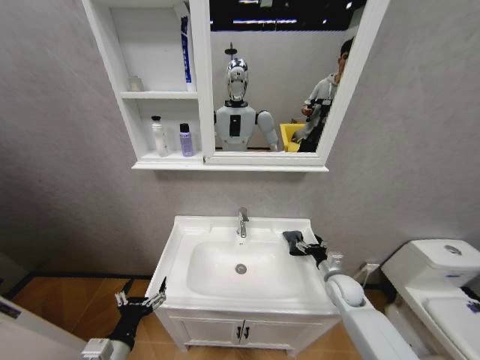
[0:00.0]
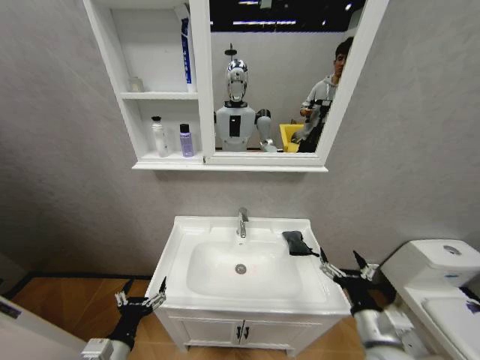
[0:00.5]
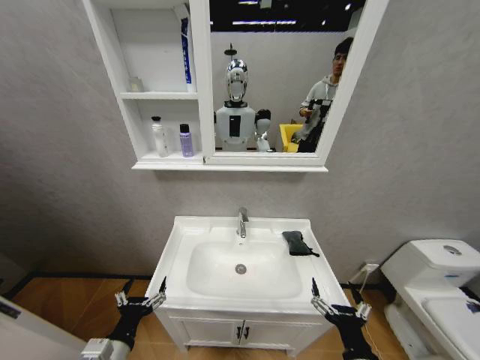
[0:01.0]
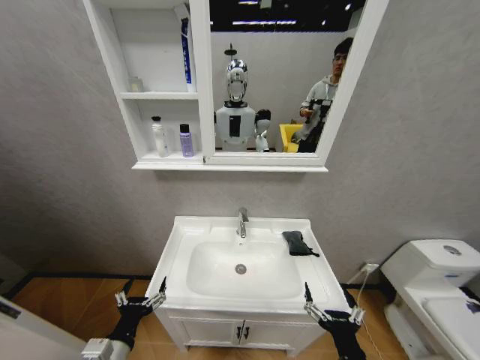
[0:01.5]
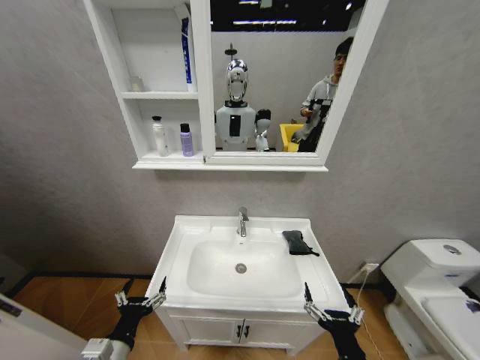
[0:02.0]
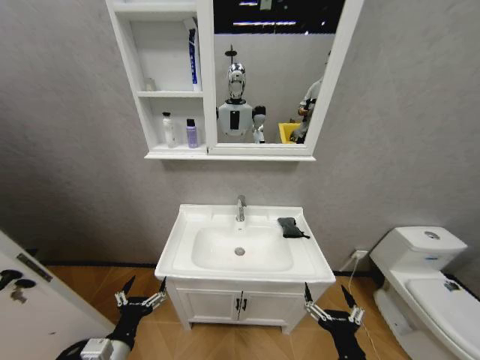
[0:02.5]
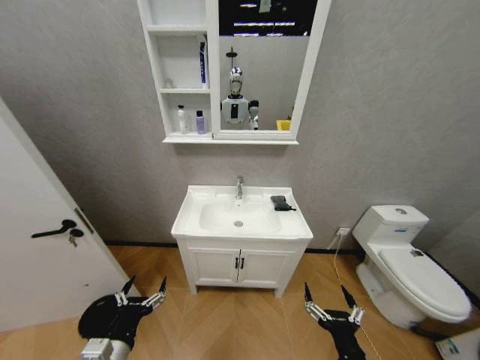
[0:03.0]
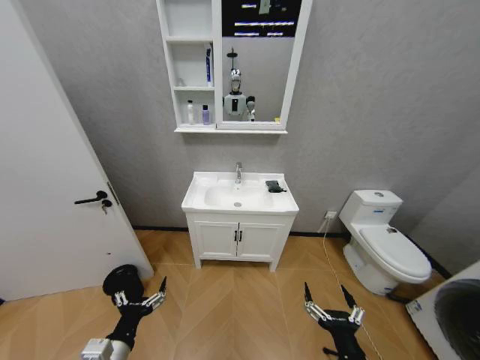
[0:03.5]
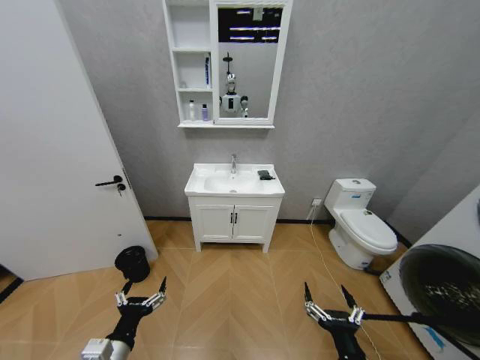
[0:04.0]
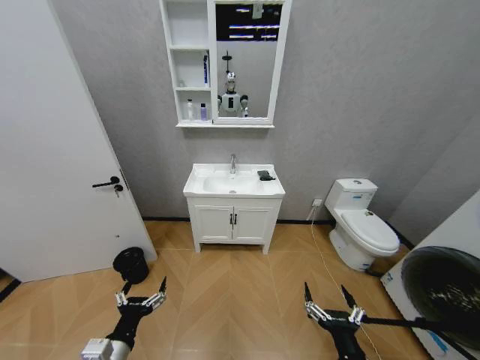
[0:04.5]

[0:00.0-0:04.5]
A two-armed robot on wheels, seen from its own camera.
Task of the whole recording: Move facial cleanser and shampoo from washbasin to cabinet, then wipe washbasin with towel.
0:00.0 to 0:02.0: The right gripper heads backward and to the left, covering about 30 cm.
